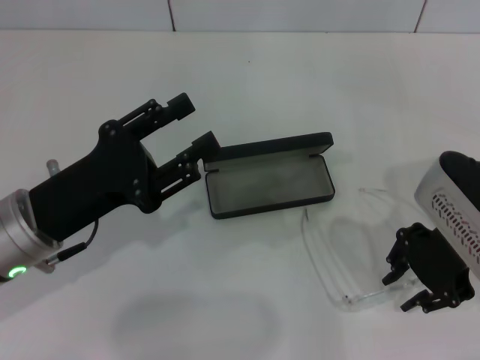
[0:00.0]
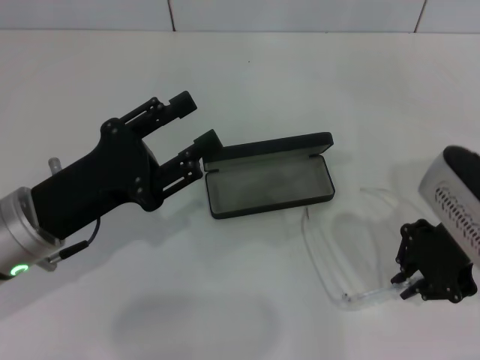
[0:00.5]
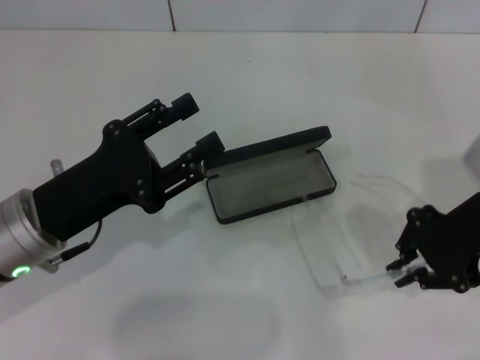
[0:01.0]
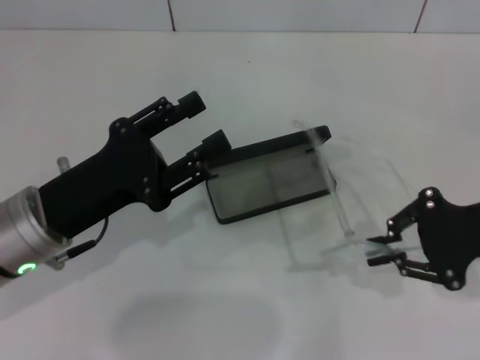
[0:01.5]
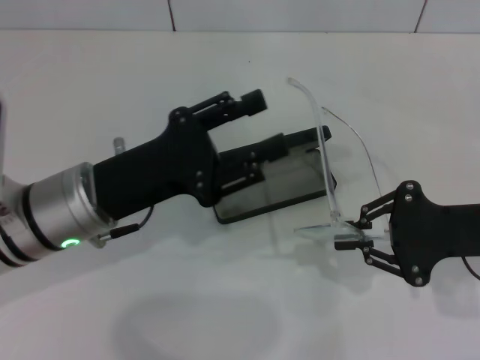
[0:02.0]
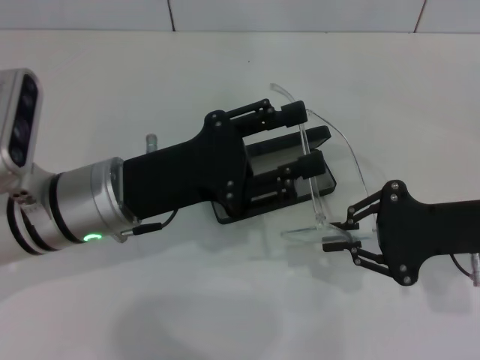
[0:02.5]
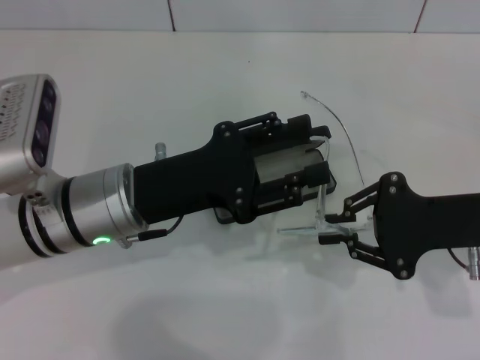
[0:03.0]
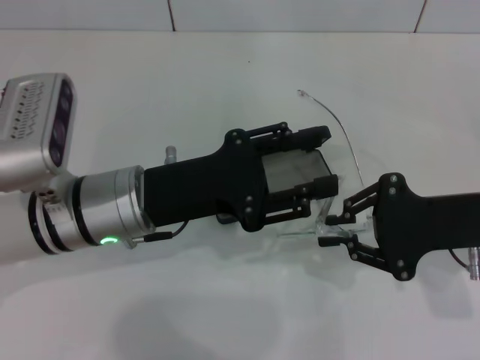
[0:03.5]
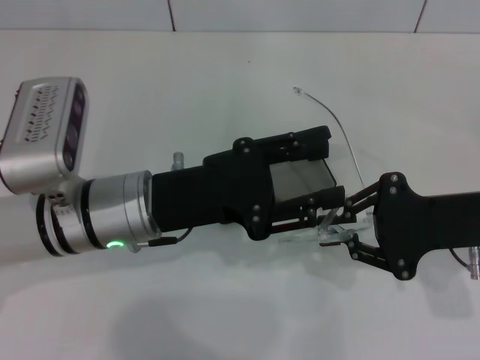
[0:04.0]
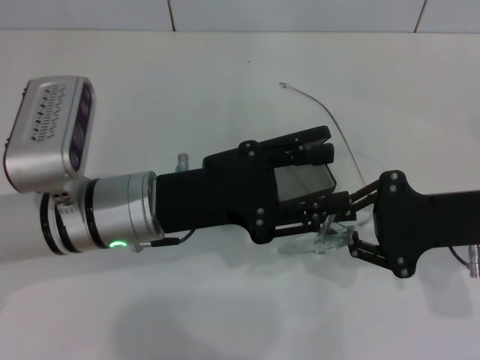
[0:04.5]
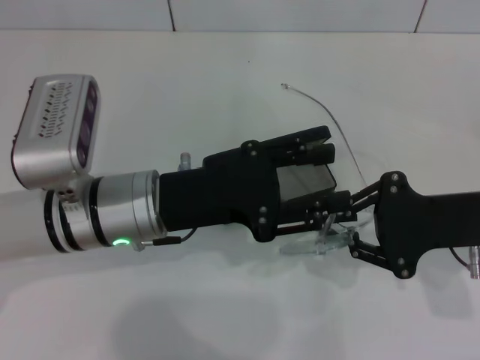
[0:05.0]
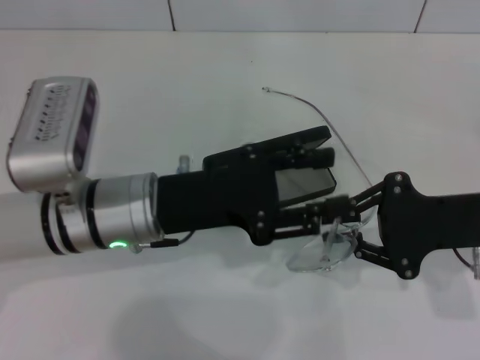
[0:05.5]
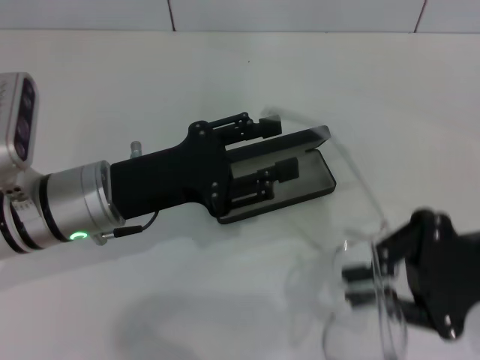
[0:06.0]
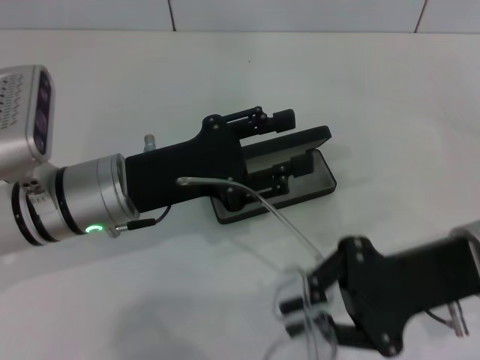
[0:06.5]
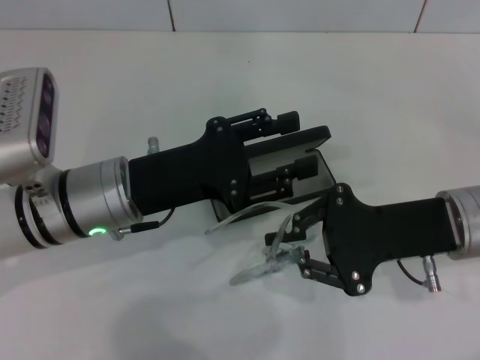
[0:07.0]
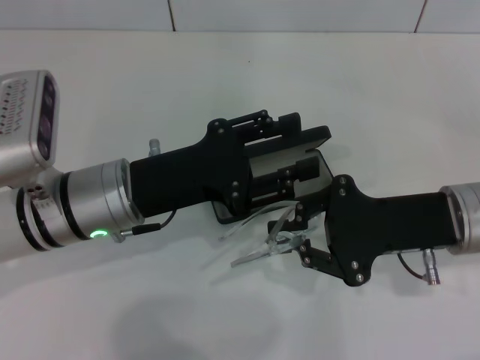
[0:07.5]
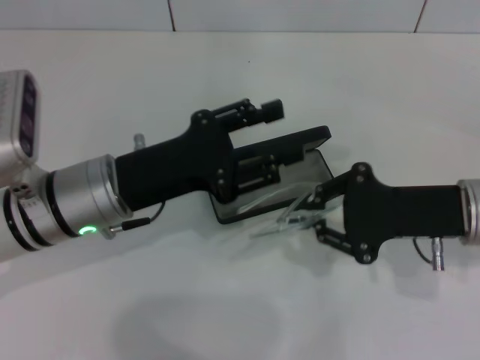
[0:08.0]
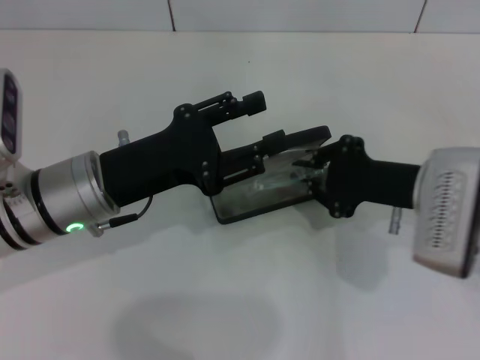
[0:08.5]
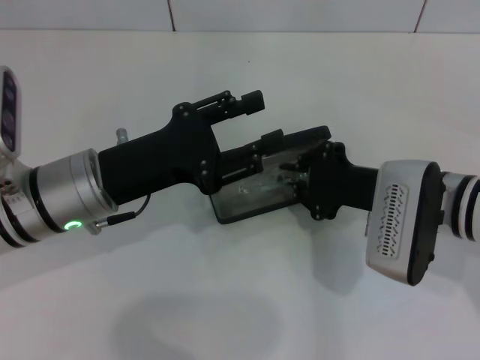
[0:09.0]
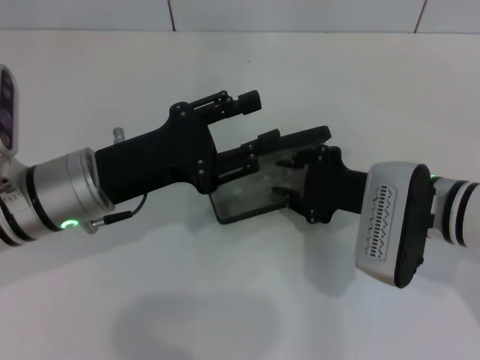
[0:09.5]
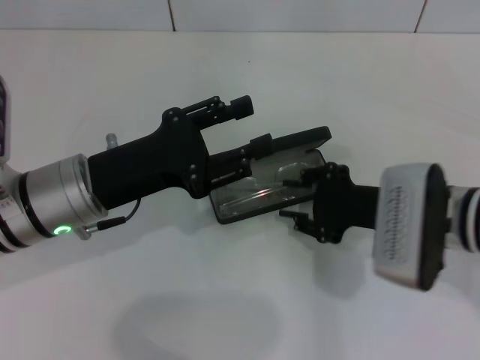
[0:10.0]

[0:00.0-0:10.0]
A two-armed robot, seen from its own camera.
Step, 0:01.0 to 0:07.5: Lift the glasses with your right hand.
Step, 0:08.0 to 0:09.5: Put the glasses into the case with your right hand.
0:00.0 to 0:02.0: The right gripper goes roughly 5 cm to the right, and closes its fingers. The left gripper moves approximately 5 cm.
0:06.0 to 0:08.0: The right gripper ends up some 5 cm from where it was.
0:08.0 to 0:10.0: The right gripper shifts about 5 cm to the left, and opens up.

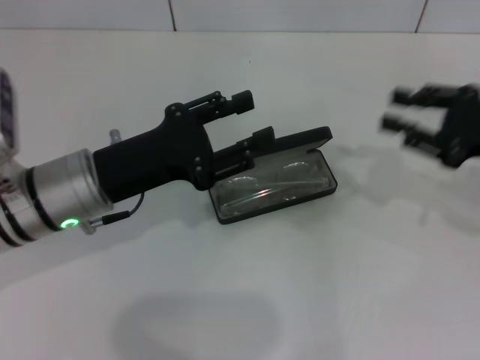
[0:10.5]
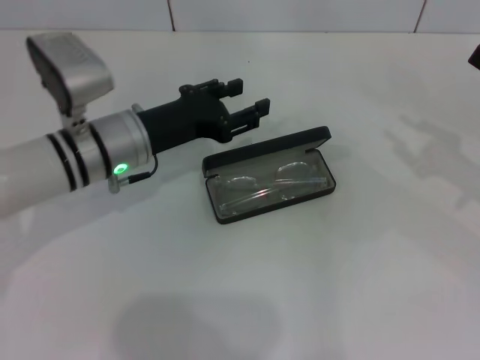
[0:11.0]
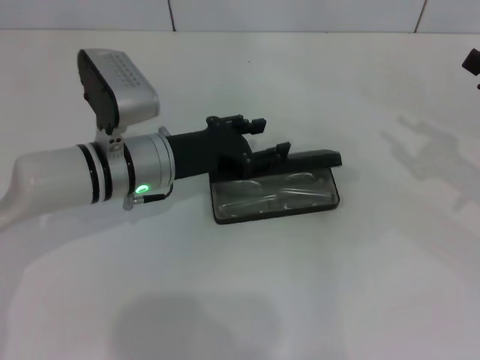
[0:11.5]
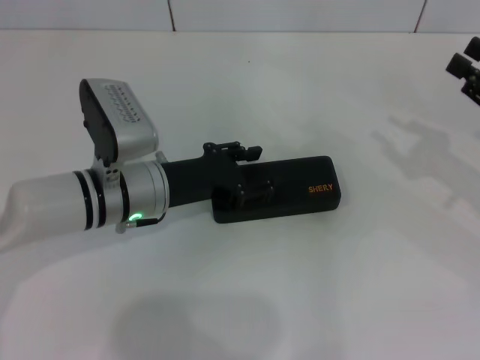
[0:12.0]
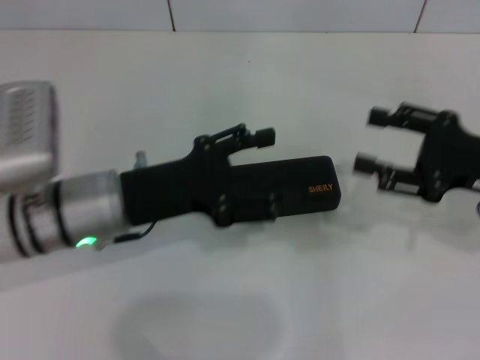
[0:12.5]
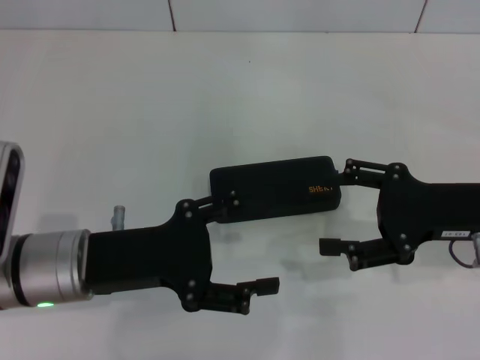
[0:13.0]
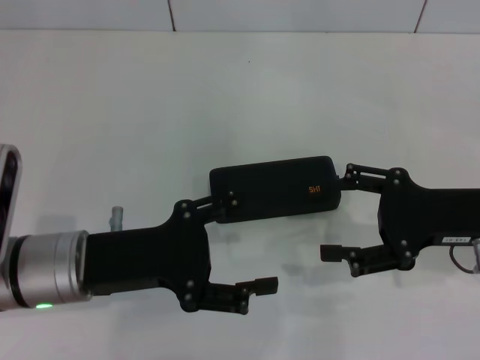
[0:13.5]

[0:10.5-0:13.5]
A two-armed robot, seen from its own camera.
Step, 0:10.5 to 0:11.5: Close the glasses case with your left hand.
0:10.5 to 0:12.0: The left gripper changes place by approximately 5 cm.
0:12.0 to 0:13.5: The right gripper goes about 10 cm to the left, and opens its fingers; the left gripper is displaced backward by roughly 10 cm.

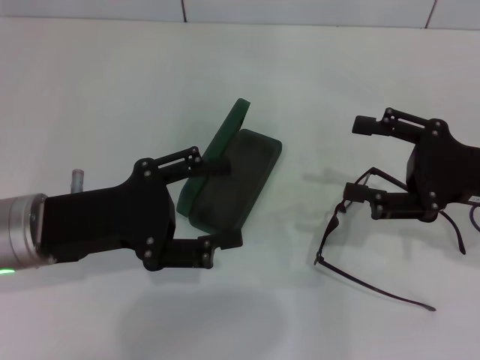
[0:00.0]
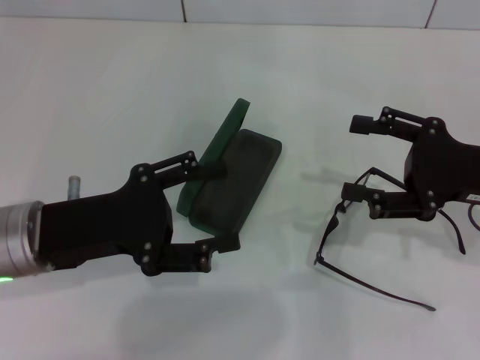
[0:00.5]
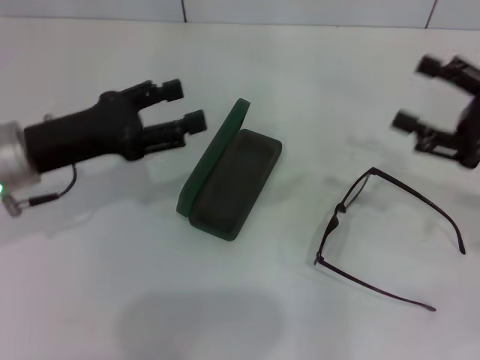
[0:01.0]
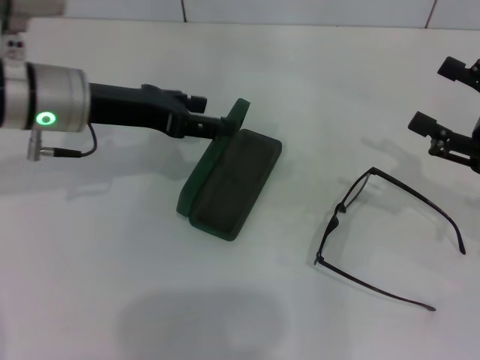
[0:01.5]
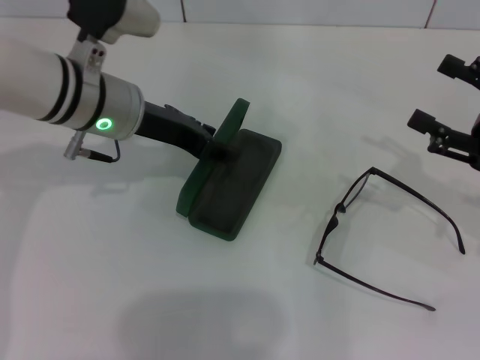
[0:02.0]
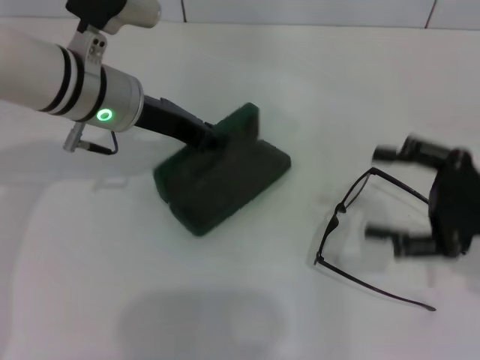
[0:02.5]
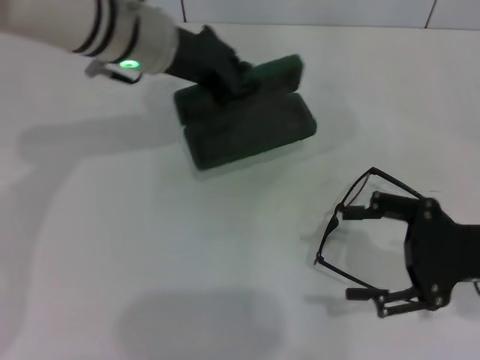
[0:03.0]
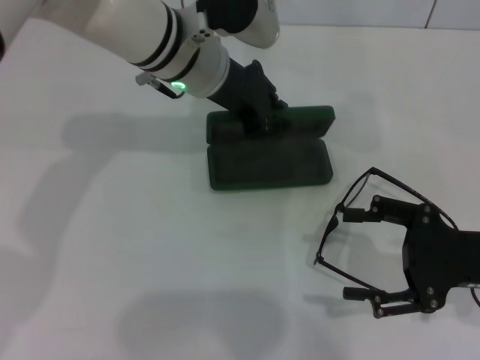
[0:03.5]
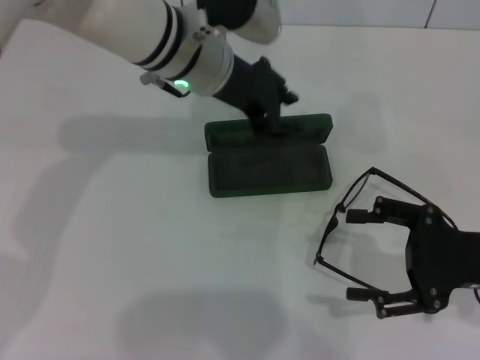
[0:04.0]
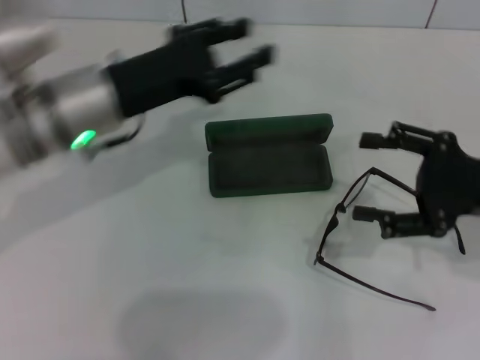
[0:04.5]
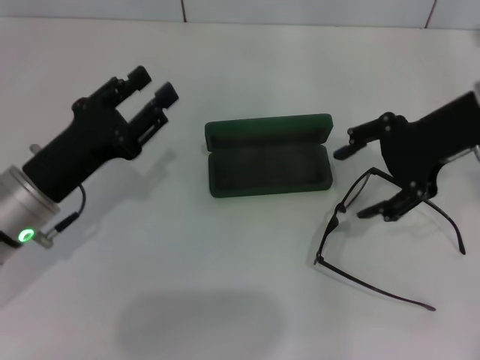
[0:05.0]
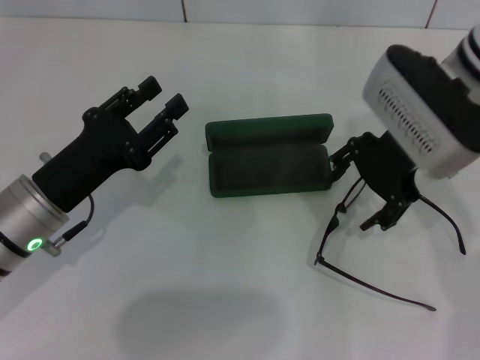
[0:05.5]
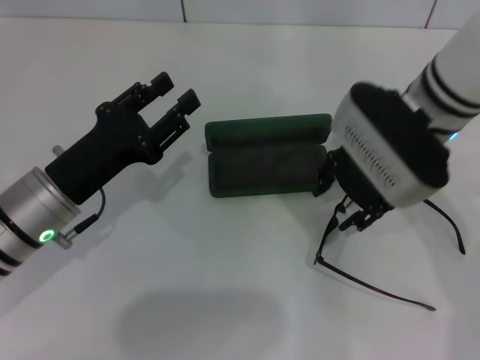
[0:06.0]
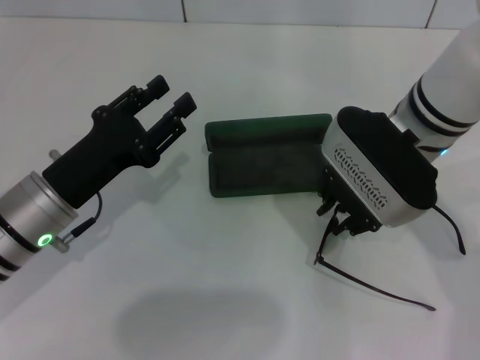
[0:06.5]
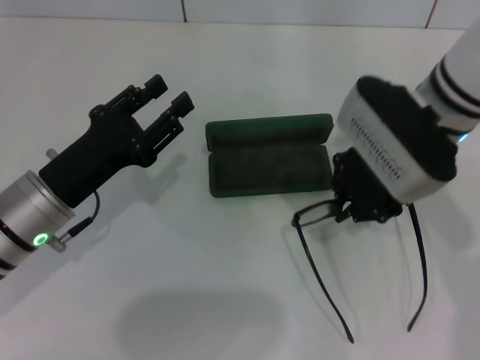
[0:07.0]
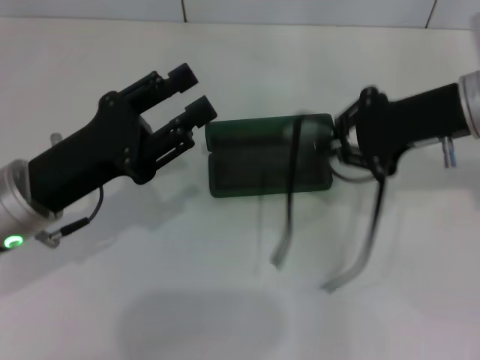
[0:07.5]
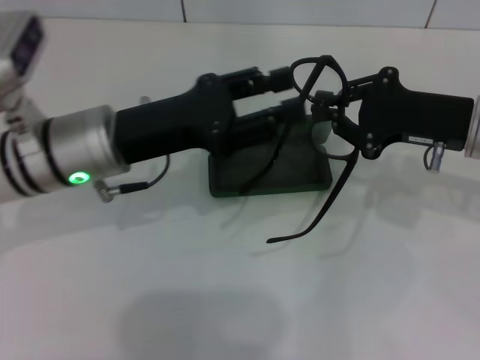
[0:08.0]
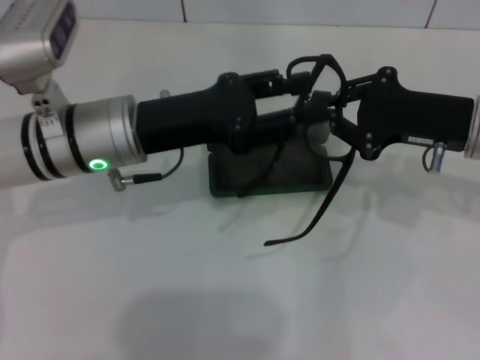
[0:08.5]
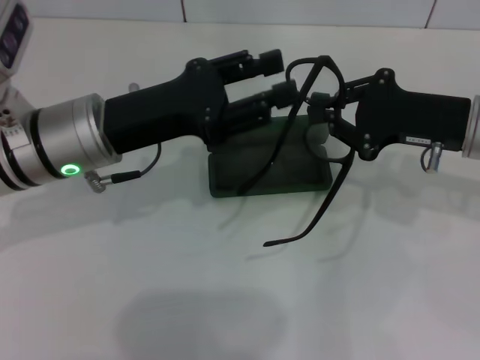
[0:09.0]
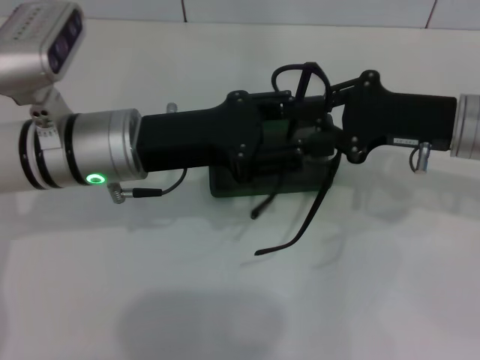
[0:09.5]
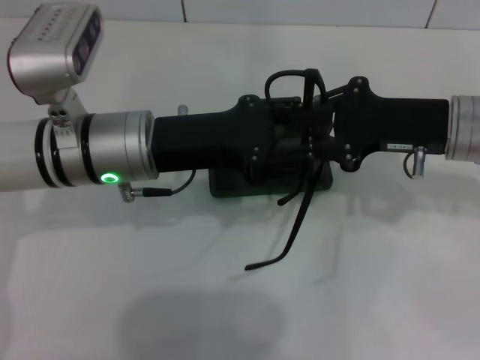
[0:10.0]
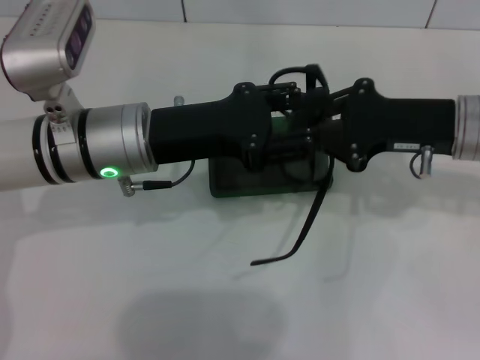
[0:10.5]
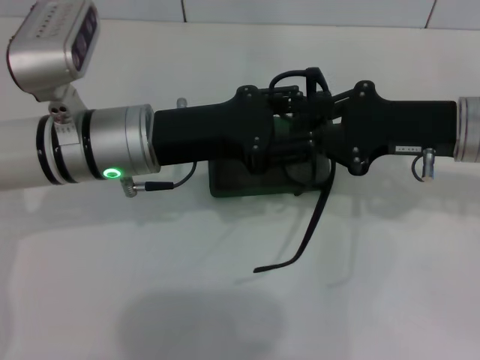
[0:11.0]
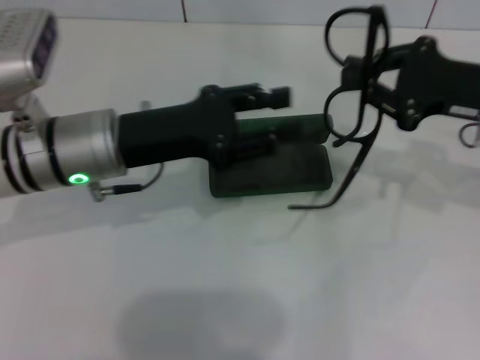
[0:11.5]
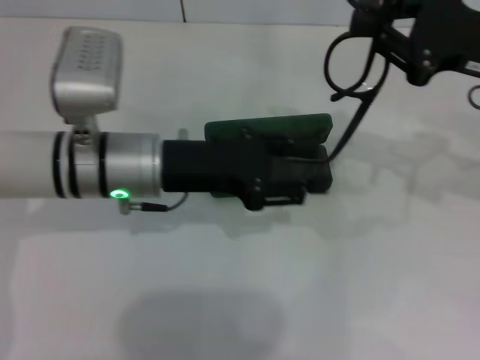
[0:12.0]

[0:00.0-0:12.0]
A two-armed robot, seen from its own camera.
Step, 0:00.0 to 0:02.0: Grab the glasses case with your left hand.
Step, 0:02.5 to 0:03.5: Place the glasses case in the center of the table with your left hand.
Step, 0:04.0 to 0:06.5: Grab the eyeglass frame with your right hand.
0:00.0 to 0:02.0: The left gripper heads forward and to the right, covering roughly 15 cm.
0:02.0 to 0:04.0: The right gripper moves approximately 5 cm. The left gripper shifts approximately 10 cm to the right, and closes its fingers.
0:04.0 to 0:06.0: The left gripper heads backward, to the left and downward, covering approximately 25 cm, and opens its fingers, while the right gripper heads to the left, forward and upward, covering roughly 20 cm.
0:06.0 to 0:08.0: The left gripper is displaced upward by some 5 cm. The right gripper heads to the right, covering approximately 10 cm, and closes up.
0:10.0 to 0:12.0: The right gripper changes place by roughly 5 cm.
